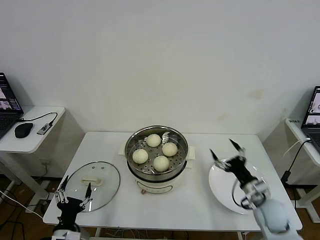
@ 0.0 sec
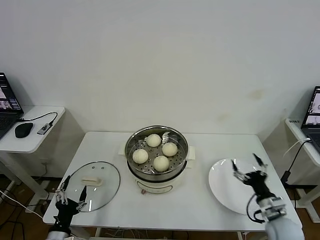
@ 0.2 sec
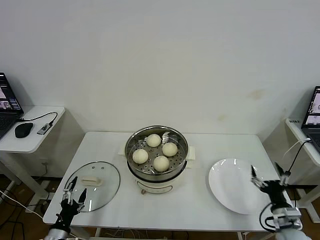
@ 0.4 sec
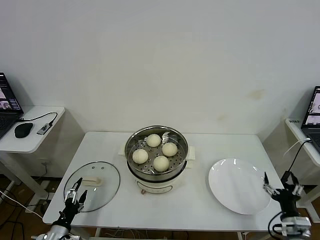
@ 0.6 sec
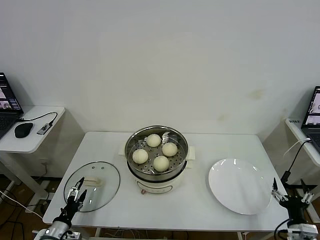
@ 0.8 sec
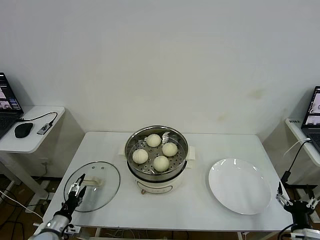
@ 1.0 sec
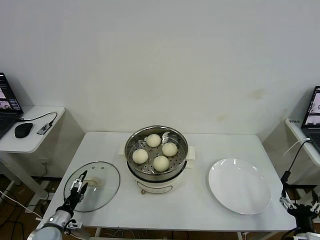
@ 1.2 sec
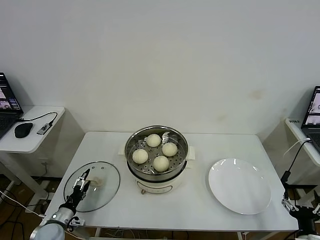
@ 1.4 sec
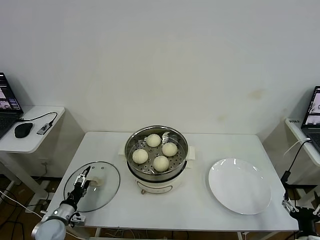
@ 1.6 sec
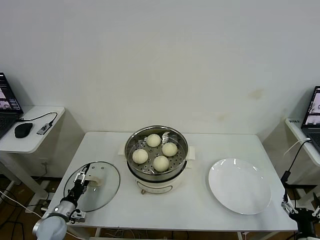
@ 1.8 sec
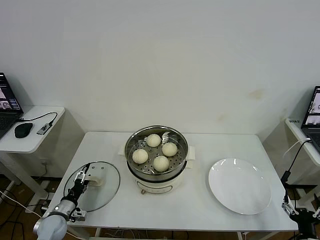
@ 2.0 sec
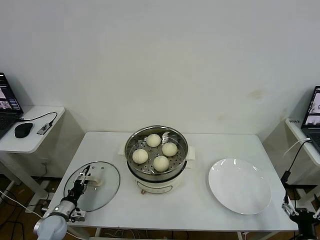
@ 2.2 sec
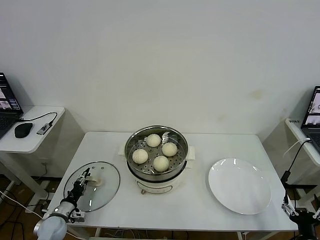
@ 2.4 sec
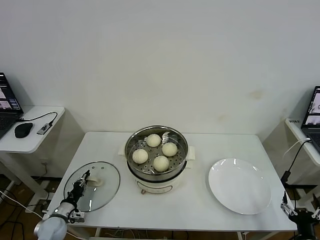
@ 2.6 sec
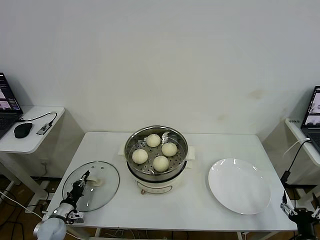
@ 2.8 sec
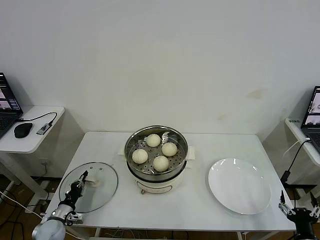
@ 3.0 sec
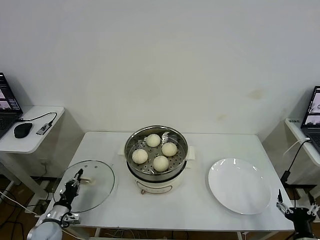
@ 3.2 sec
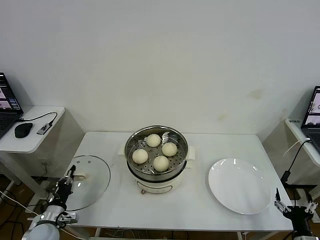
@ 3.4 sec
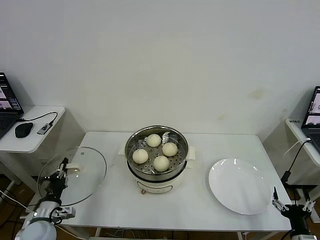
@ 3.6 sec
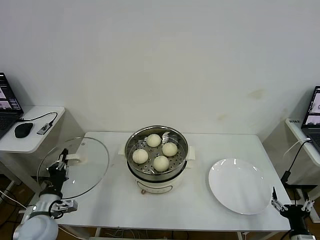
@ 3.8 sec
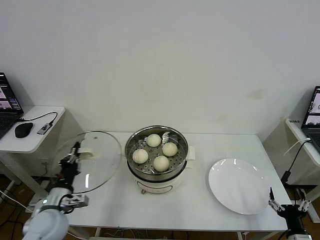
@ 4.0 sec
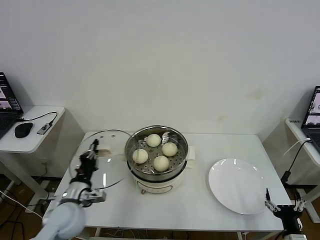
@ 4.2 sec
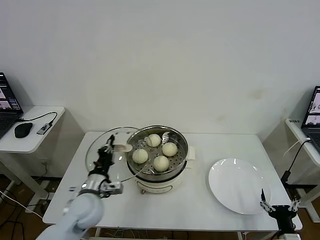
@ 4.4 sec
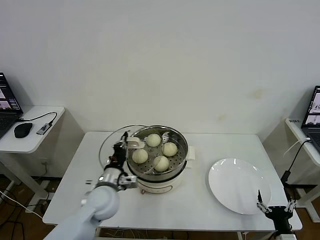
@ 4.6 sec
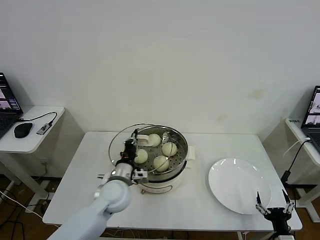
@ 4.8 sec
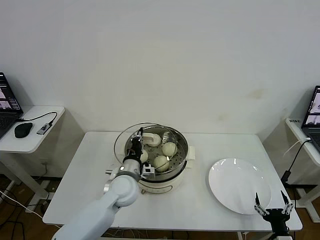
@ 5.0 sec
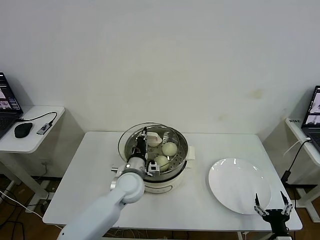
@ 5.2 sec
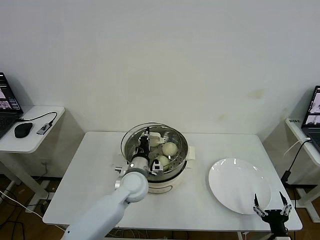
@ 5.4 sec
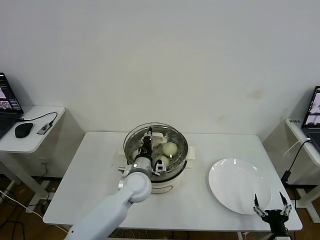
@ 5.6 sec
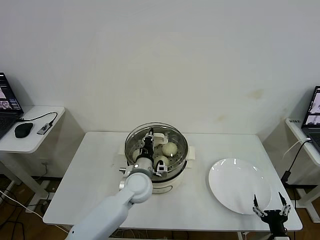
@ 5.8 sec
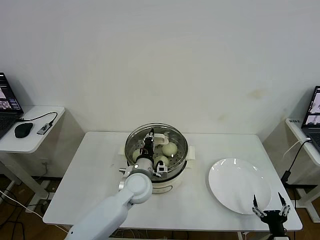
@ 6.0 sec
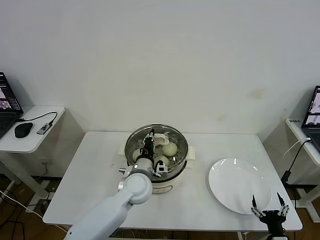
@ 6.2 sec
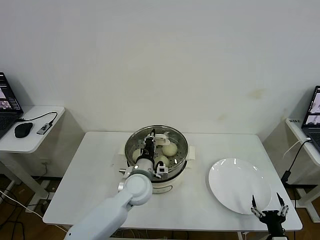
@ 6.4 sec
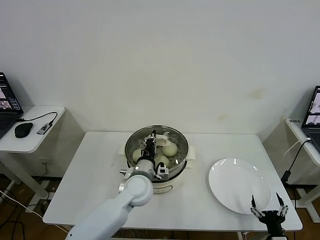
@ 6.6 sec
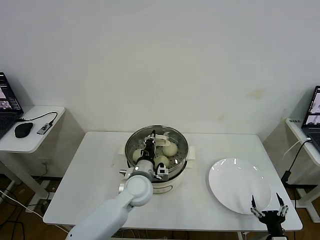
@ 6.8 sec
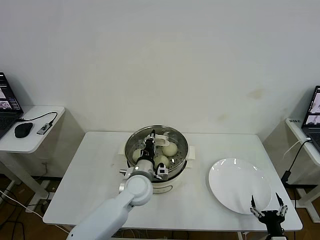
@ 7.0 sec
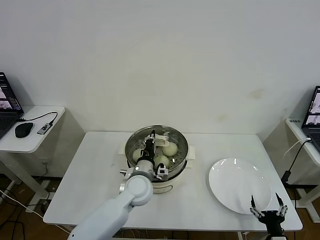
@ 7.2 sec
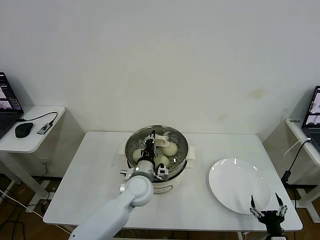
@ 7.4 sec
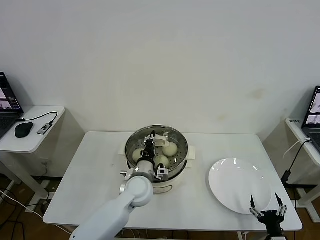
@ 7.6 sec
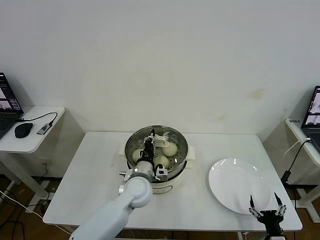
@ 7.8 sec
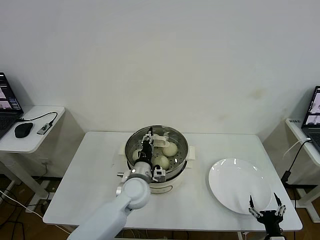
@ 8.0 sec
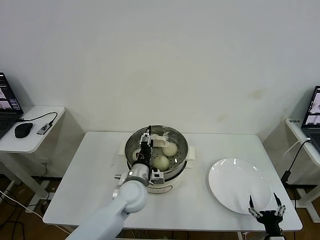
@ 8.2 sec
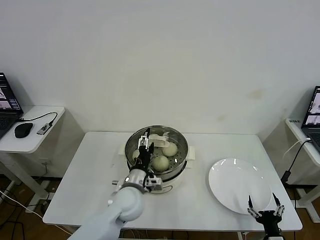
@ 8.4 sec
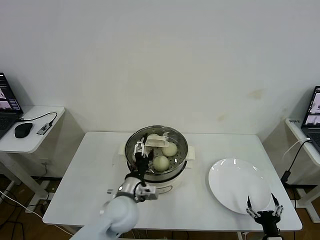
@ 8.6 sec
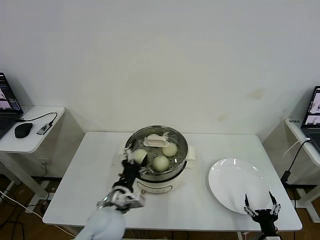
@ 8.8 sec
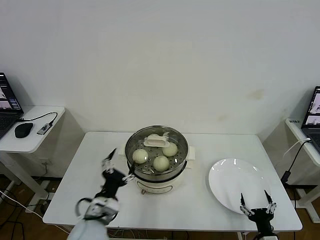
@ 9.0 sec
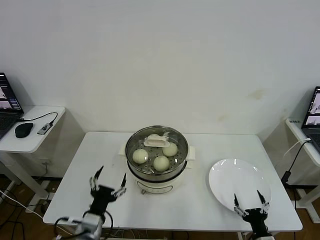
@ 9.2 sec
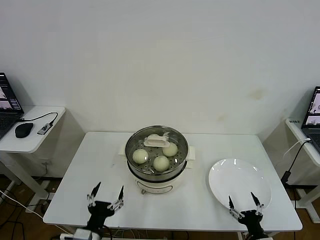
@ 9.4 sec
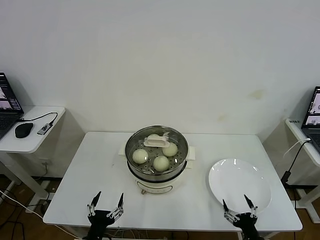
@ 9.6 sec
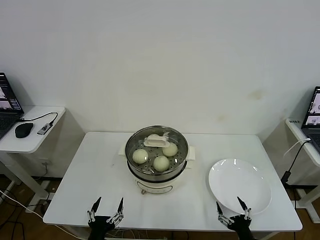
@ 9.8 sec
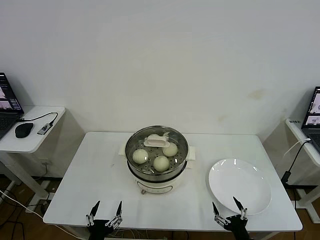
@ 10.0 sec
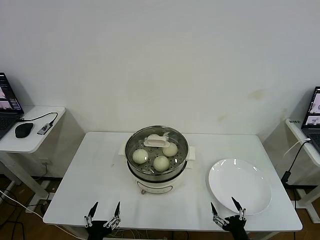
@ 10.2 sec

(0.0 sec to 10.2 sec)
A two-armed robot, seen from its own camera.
Task of the whole recording: take steamed baozi put them in steamer then cover it.
Step, 0.0 sec - 2.8 sec: Grasp the pot lid with left gripper.
Step, 3.0 sec - 8.4 sec: Place the pot lid on the steamer with left gripper.
0.0 sec - 1.4 sec: The left gripper goes some 15 cm to the left, forward and downward. The right gripper travels backward and to the right by approximately 20 cm.
1.4 sec - 3.0 sec: The left gripper closes its fingers.
3.0 sec - 4.4 sec: The left gripper travels upward and to the right by some 25 cm.
4.4 sec - 5.8 sec: The left gripper heads to the right and forward, covering some 15 cm.
5.8 sec - 7.2 sec: There are only small adjustments of the grippers.
7.2 sec - 8.8 sec: The left gripper goes roughly 10 cm backward and to the left, and opens up.
8.8 sec - 10.2 sec: The left gripper shifts approximately 20 cm backward, downward and to the left; the right gripper is displaced to the left by roughly 5 cm.
